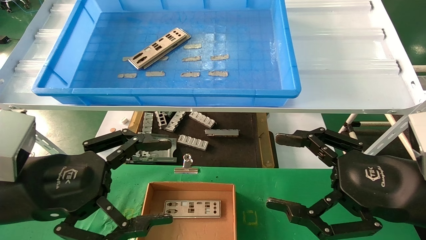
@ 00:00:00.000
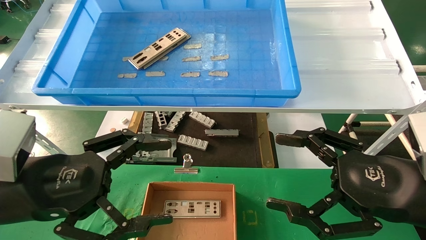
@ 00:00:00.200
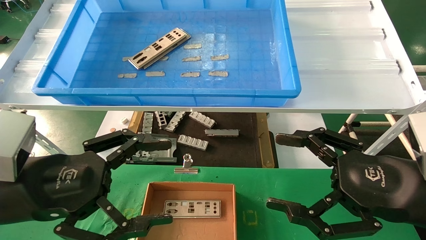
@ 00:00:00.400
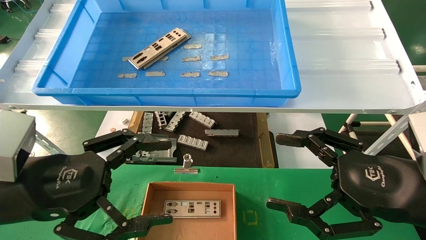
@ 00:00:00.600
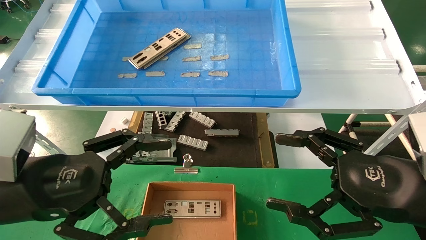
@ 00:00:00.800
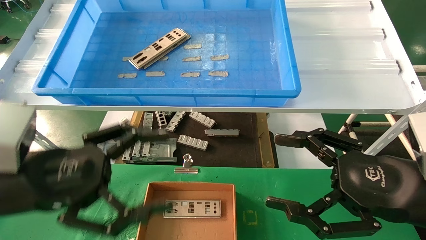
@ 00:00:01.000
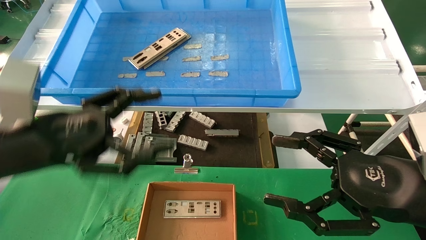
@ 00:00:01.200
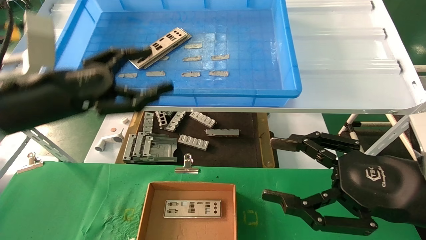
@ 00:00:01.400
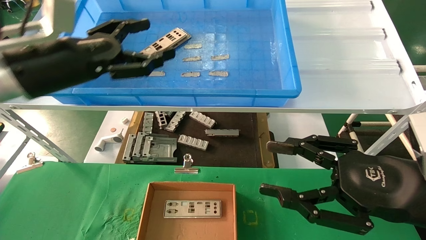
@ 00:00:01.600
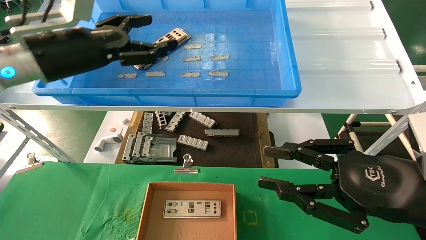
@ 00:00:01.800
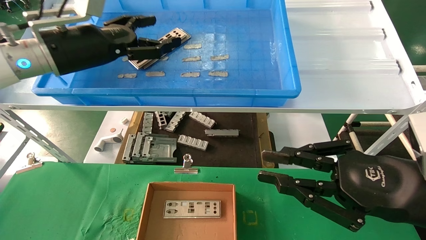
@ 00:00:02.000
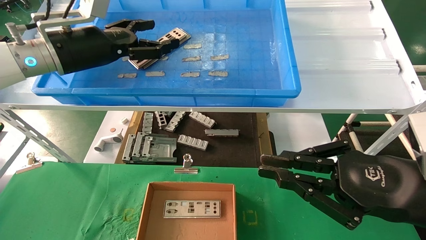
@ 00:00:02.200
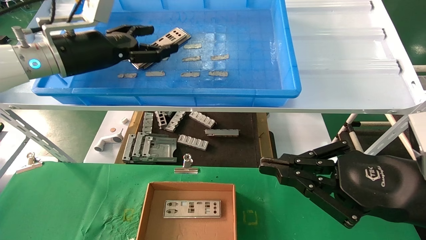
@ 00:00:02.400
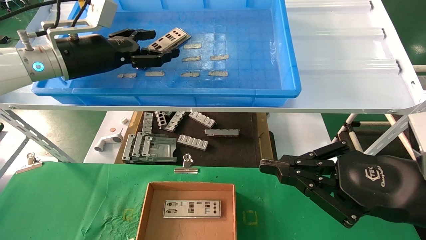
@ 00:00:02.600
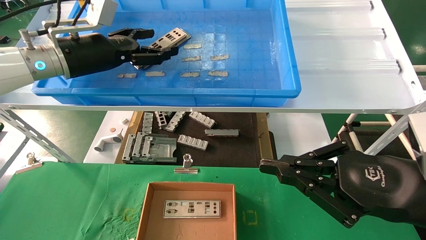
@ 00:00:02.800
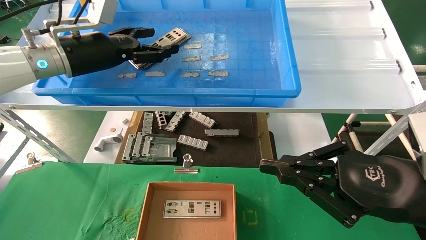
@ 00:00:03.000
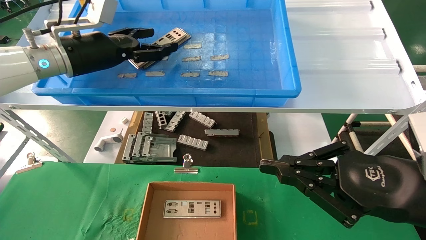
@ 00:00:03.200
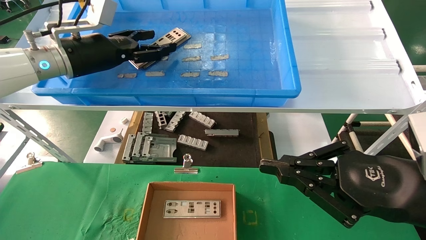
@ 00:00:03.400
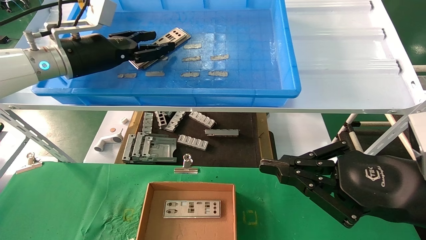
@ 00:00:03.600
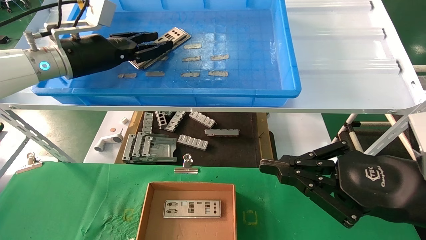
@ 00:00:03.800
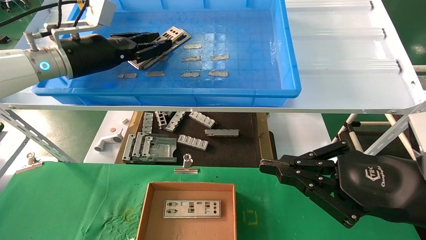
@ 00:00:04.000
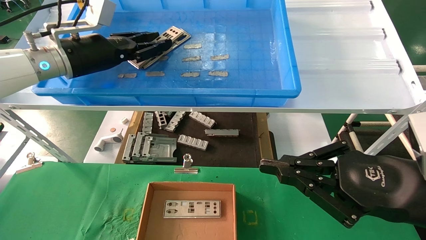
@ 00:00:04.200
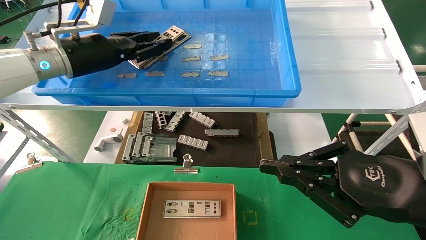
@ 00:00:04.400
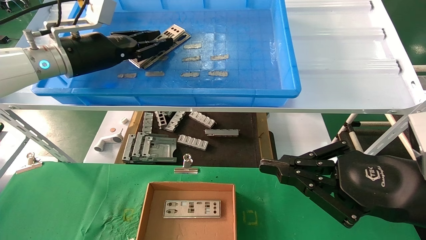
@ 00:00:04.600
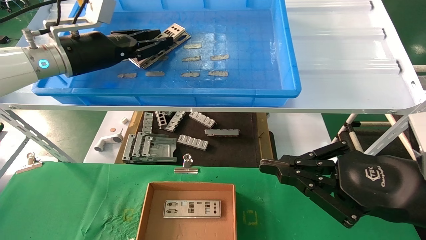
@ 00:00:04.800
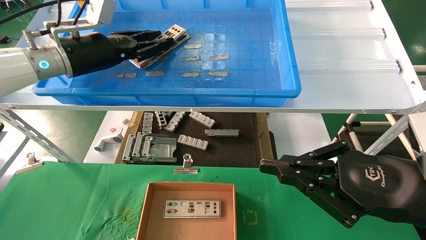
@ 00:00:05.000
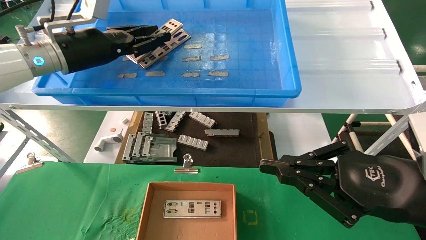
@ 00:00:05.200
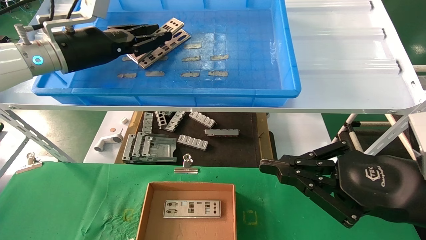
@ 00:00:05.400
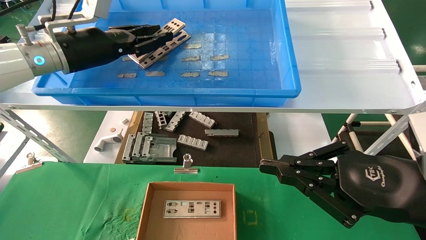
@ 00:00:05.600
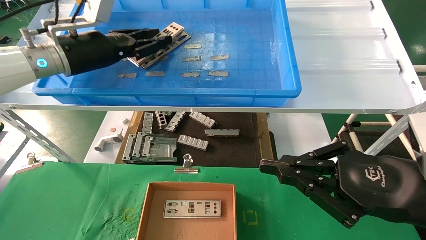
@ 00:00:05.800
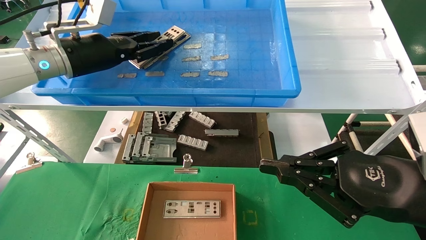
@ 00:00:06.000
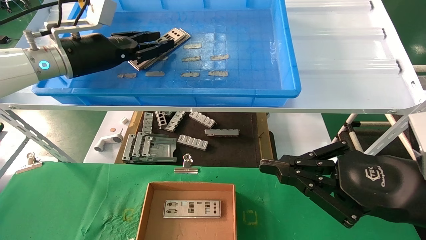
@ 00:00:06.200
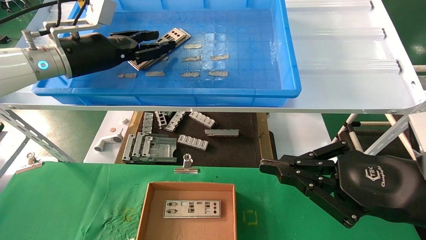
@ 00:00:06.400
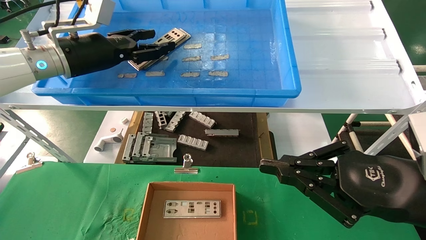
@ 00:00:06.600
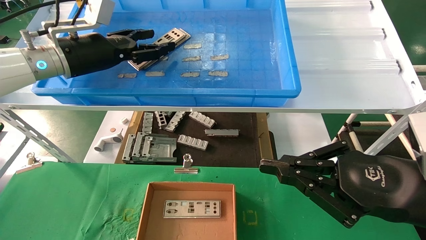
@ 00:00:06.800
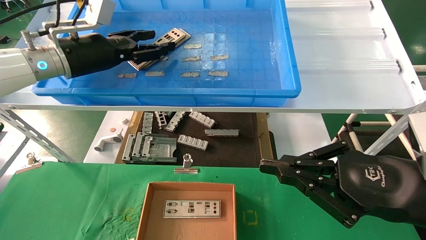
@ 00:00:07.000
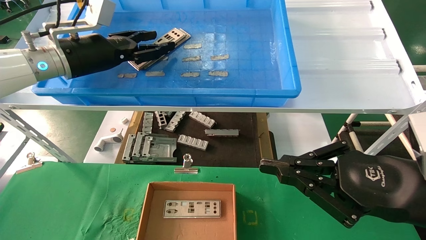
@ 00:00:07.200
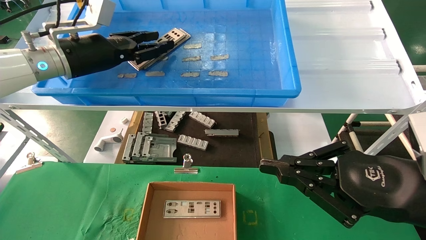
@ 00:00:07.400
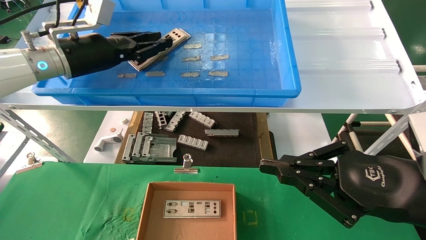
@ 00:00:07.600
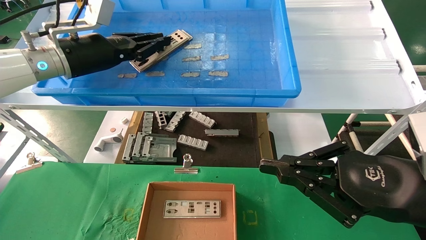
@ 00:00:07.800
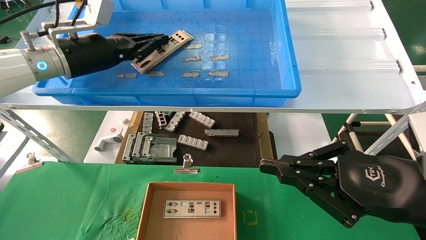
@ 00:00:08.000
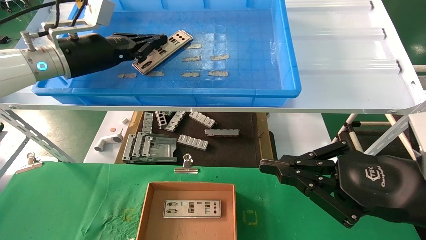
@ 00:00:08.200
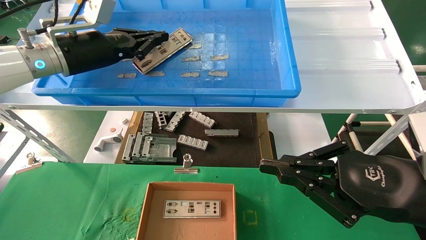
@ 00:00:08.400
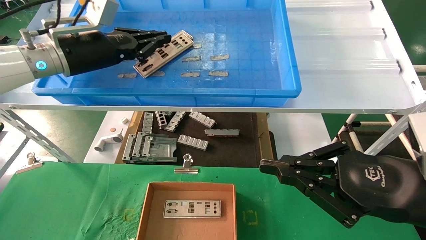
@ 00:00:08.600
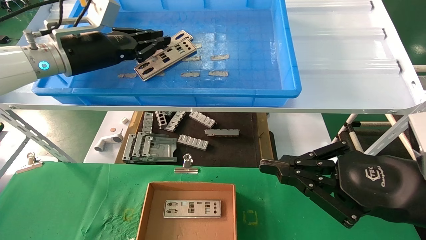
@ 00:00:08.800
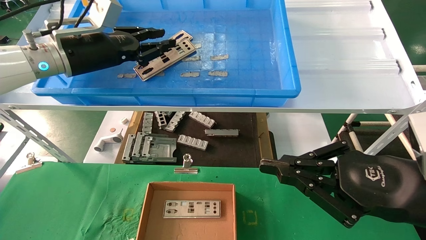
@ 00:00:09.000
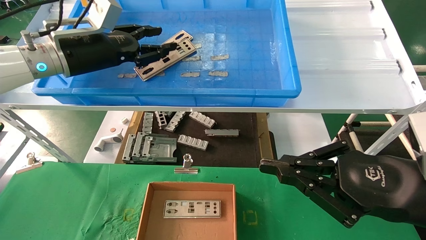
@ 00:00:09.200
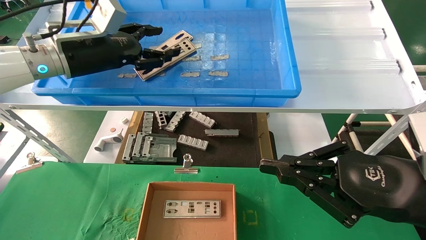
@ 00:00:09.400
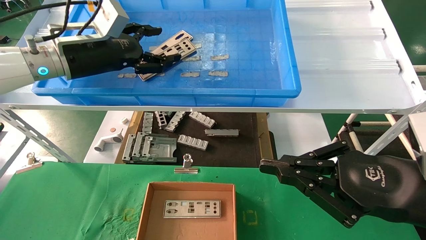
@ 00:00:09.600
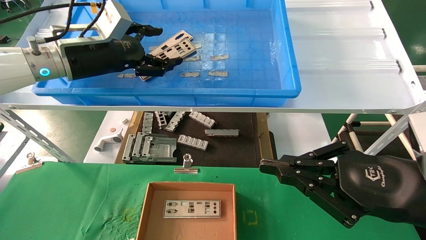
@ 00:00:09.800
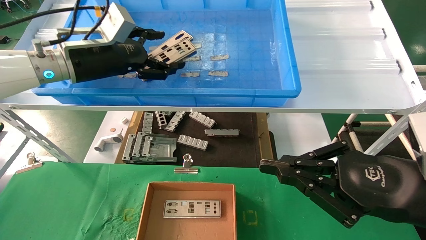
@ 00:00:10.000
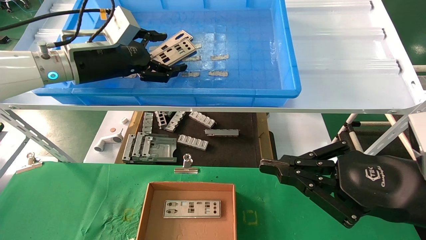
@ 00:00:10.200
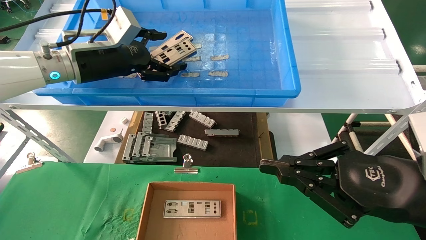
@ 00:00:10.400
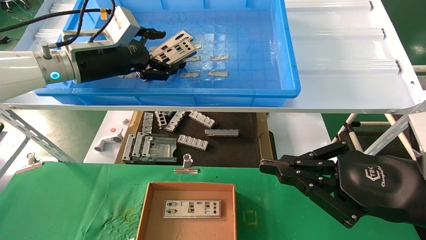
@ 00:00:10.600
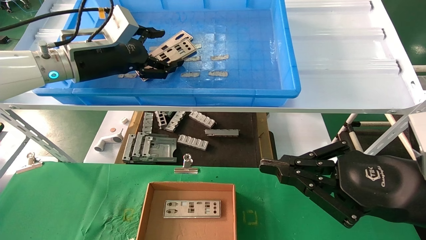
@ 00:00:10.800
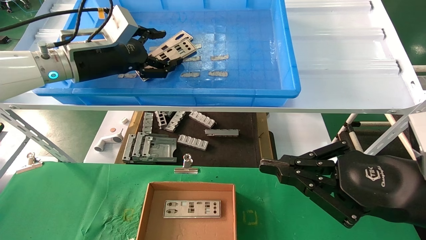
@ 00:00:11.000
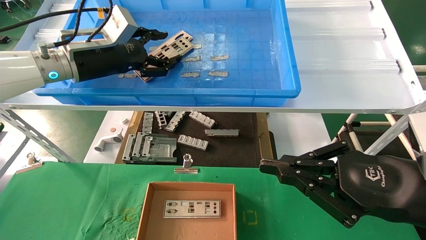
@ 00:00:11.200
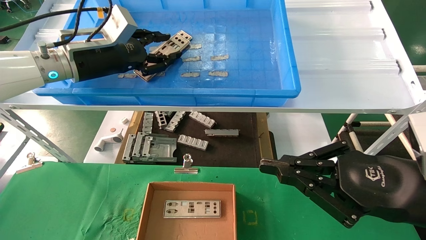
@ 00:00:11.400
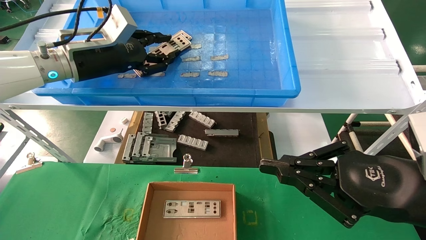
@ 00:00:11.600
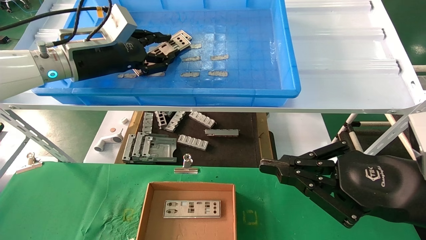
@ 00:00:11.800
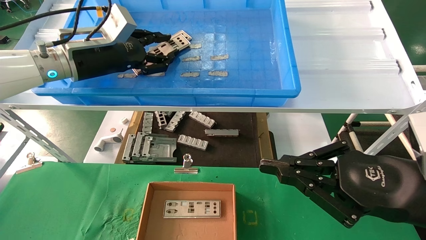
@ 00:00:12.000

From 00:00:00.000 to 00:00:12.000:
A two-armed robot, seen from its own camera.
Task of the whole recording: pick up the parts on the tray and put them in the cardboard box.
Step, from 00:00:01.200 to 00:00:11.600: Pick up the IO bracket from the container box.
From 00:00:00.000 to 00:00:01.600: The left gripper travels forward and upward by some 15 cm.
From 00:00:01.600 to 00:00:03.000: The right gripper closes up; the left gripper goes about 10 cm forward.
From 00:00:03.000 to 00:00:04.400: The left gripper closes its fingers.
From 00:00:04.400 to 00:00:07.600: The two grippers keep their place.
From 00:00:07.600 to 00:00:09.000: The grippers move only a little.
From 00:00:09.000 to 00:00:10.400: The left gripper opens.
From 00:00:10.400 to 00:00:12.000: The left gripper closes.

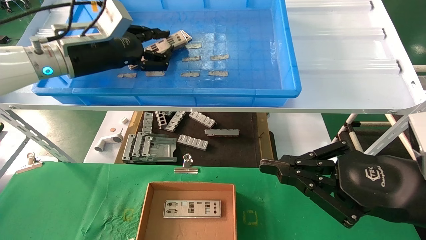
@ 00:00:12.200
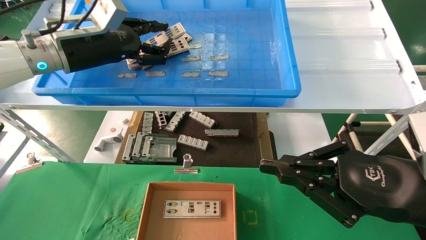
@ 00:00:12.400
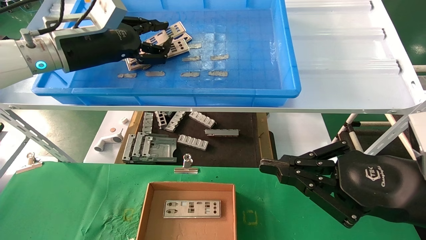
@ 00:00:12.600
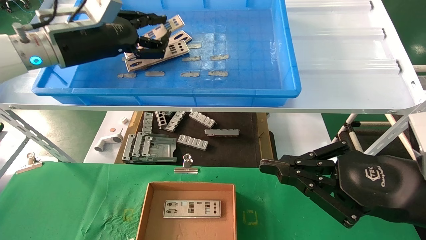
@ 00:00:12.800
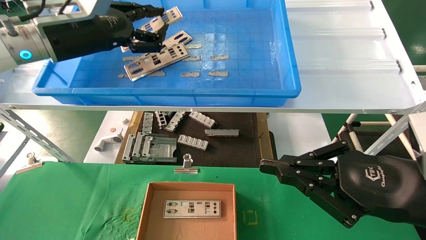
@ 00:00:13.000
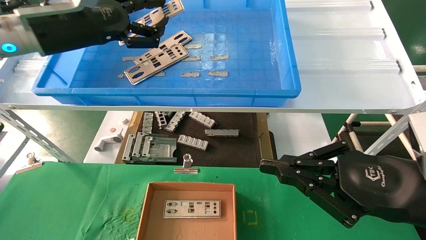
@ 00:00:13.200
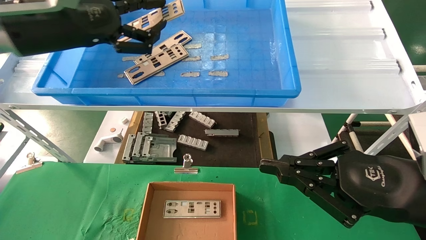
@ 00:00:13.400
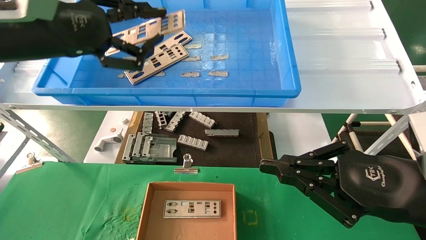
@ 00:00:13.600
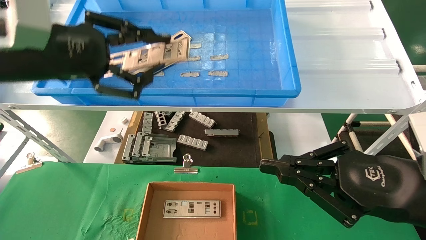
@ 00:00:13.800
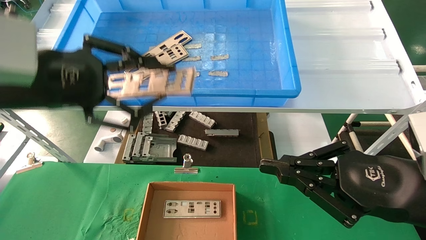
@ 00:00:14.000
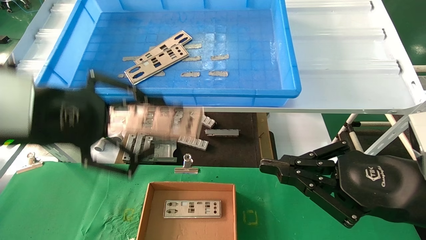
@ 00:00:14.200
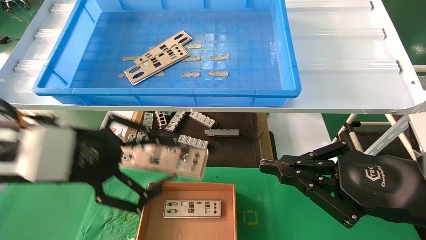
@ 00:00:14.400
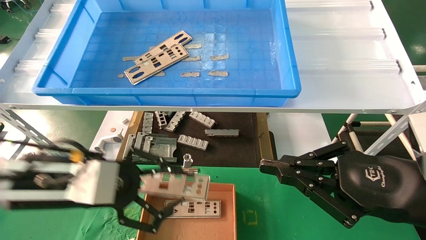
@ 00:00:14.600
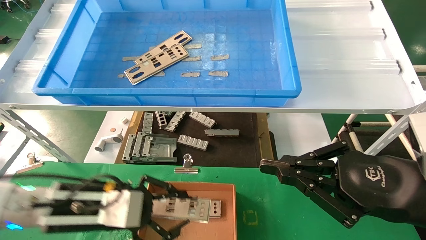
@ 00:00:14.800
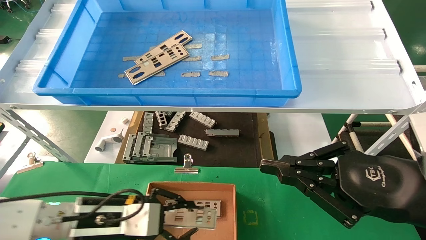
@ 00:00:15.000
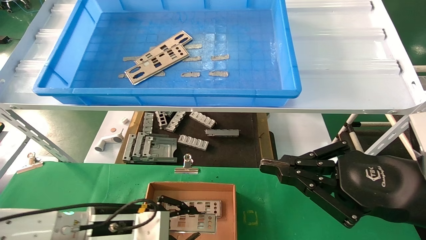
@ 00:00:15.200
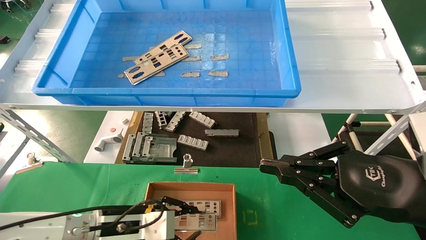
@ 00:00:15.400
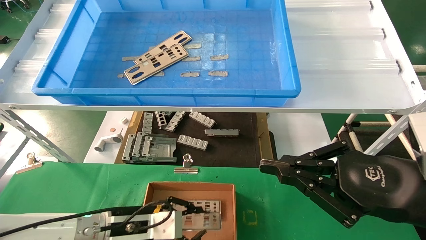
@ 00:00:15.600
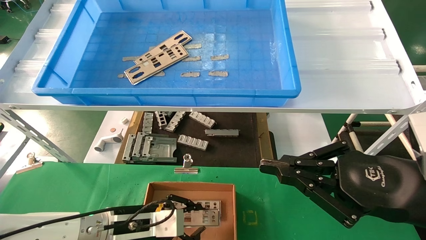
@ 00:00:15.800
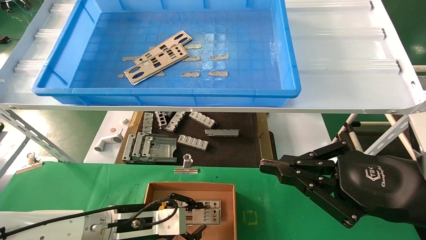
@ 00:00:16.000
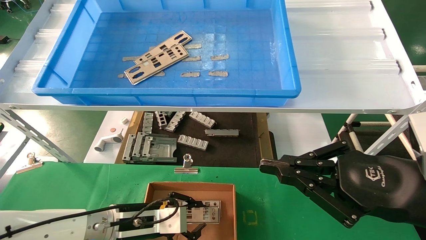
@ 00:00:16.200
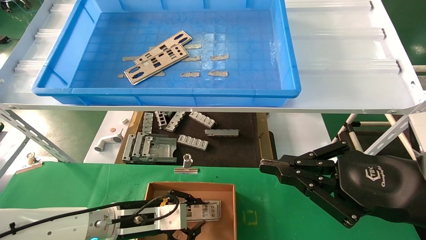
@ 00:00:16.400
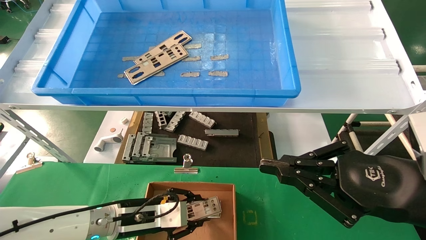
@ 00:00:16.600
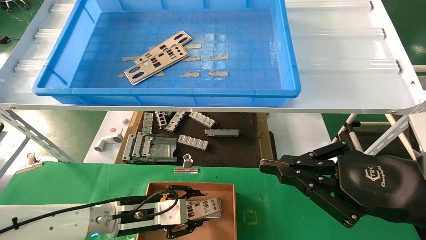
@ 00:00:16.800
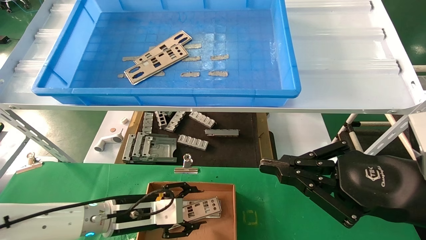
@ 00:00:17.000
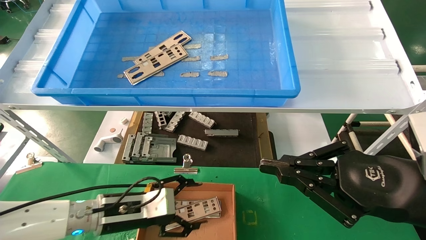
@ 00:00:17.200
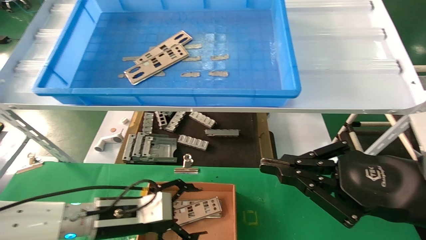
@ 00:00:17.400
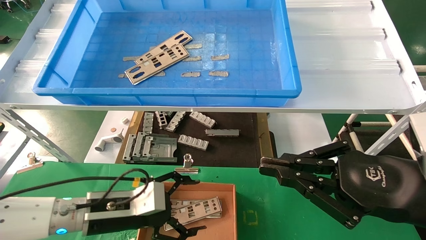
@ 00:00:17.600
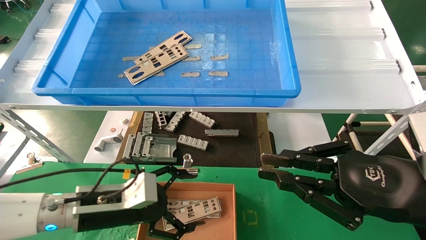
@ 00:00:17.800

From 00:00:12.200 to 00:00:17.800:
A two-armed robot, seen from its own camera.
Task of the whole recording: pick up the parts on the tray and put them in the cardboard box.
Step, from 00:00:12.200 to 00:00:16.800: Place the IO bracket into the ingredient slot.
From 00:00:12.200 to 00:00:13.600: The left gripper travels backward by approximately 10 cm.
From 00:00:13.600 to 00:00:15.000: The left gripper travels downward by about 30 cm.
From 00:00:15.000 to 00:00:16.400: The left gripper travels downward and forward by some 10 cm.
From 00:00:16.400 to 00:00:17.800: The left gripper shifts some 5 cm upward, and opens.
